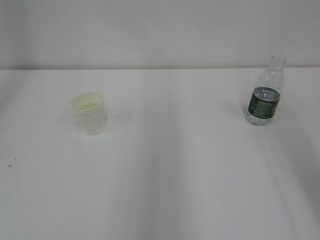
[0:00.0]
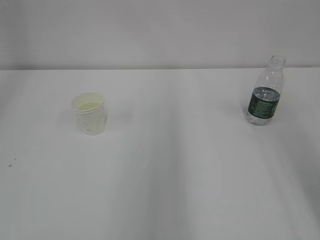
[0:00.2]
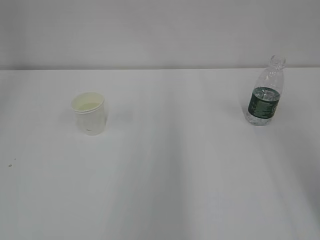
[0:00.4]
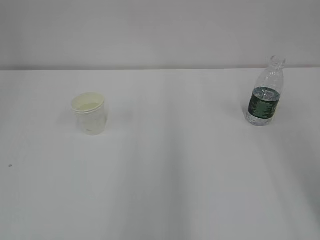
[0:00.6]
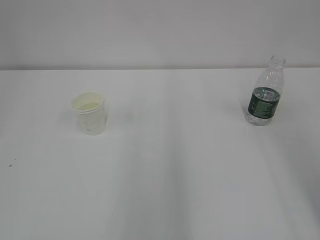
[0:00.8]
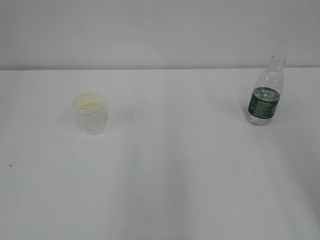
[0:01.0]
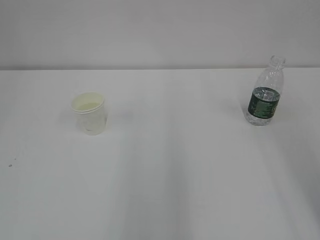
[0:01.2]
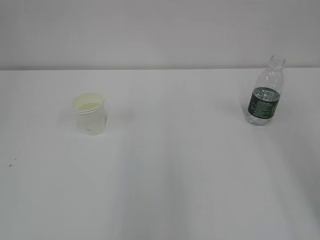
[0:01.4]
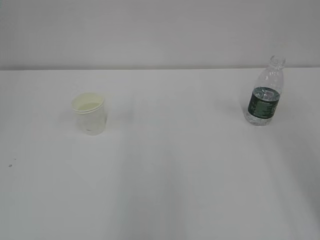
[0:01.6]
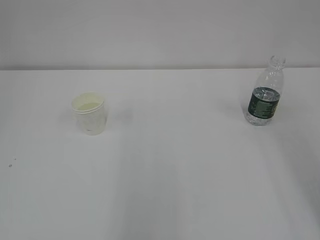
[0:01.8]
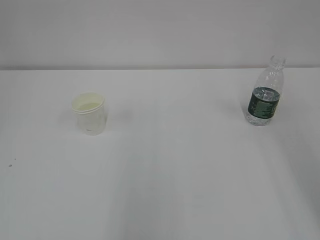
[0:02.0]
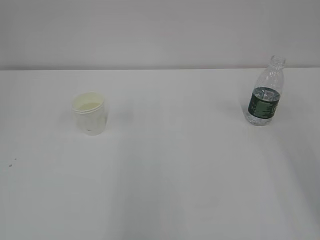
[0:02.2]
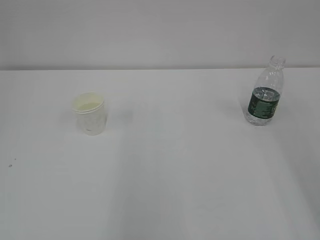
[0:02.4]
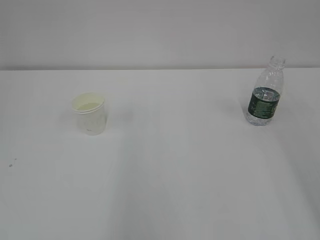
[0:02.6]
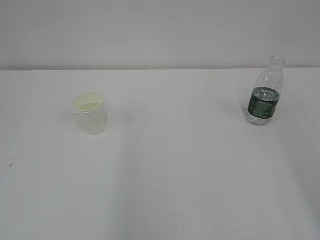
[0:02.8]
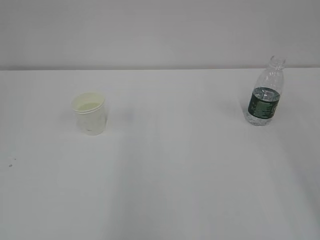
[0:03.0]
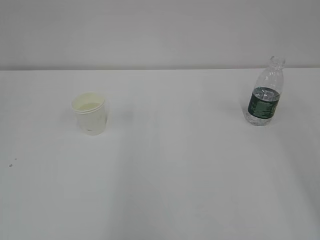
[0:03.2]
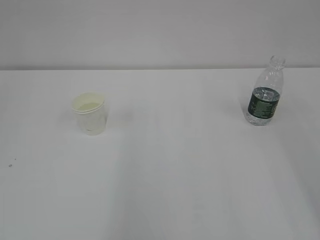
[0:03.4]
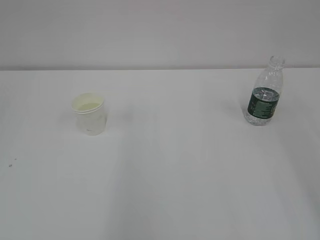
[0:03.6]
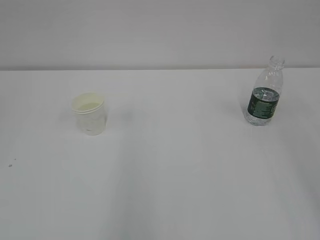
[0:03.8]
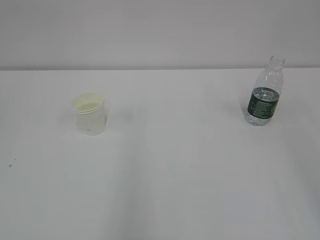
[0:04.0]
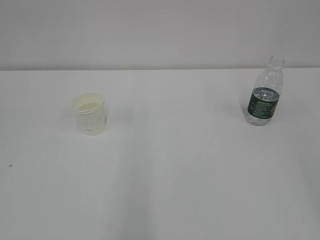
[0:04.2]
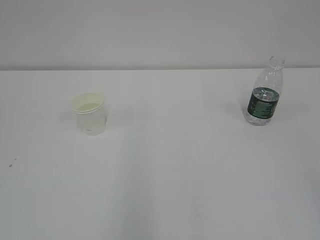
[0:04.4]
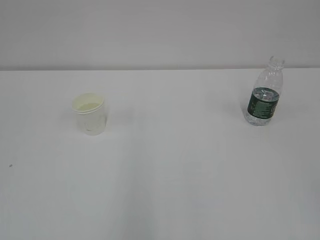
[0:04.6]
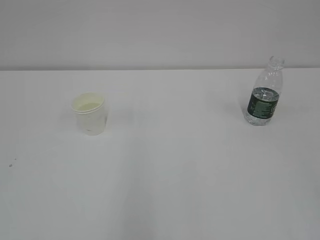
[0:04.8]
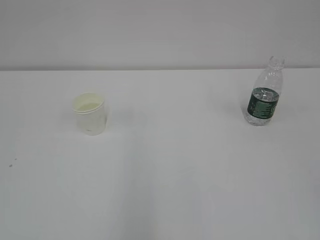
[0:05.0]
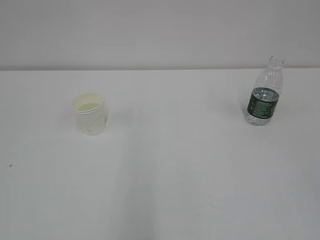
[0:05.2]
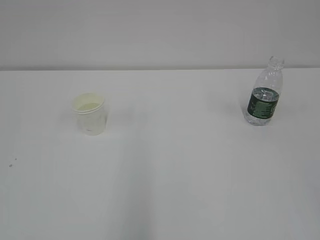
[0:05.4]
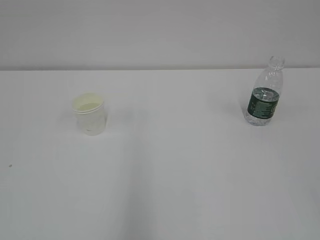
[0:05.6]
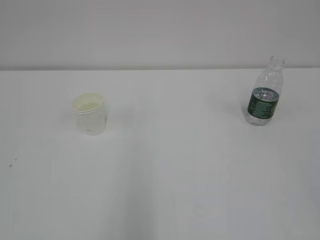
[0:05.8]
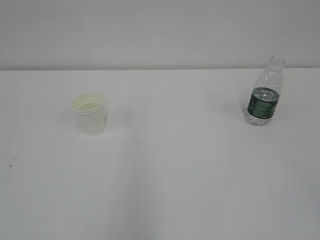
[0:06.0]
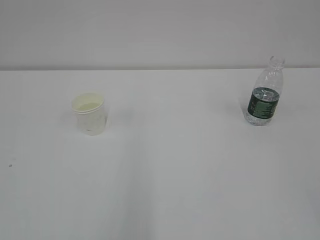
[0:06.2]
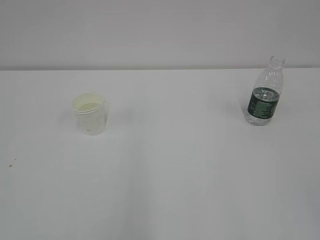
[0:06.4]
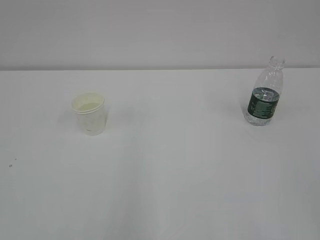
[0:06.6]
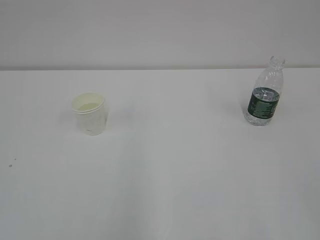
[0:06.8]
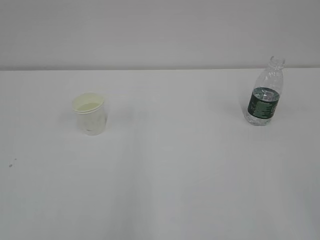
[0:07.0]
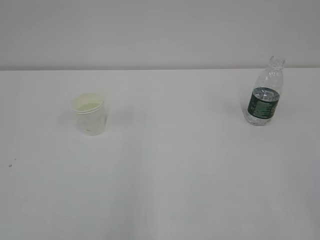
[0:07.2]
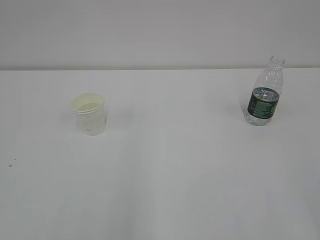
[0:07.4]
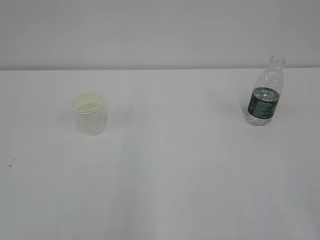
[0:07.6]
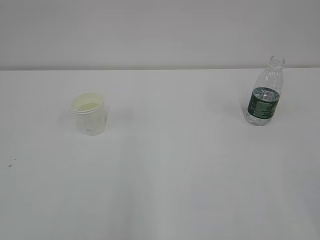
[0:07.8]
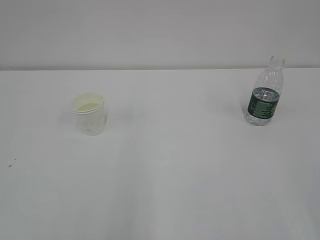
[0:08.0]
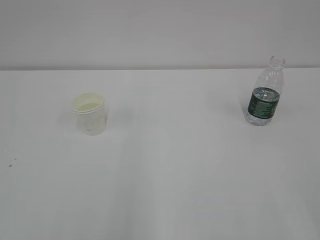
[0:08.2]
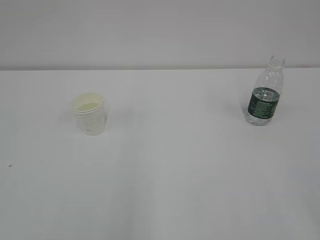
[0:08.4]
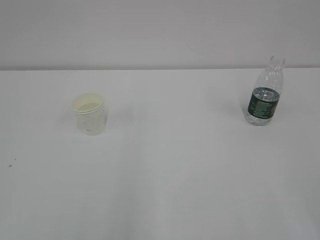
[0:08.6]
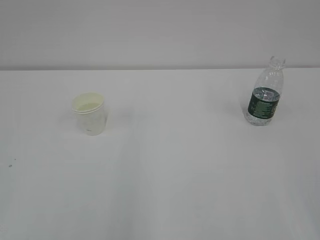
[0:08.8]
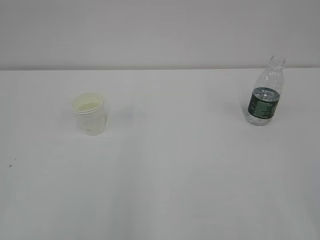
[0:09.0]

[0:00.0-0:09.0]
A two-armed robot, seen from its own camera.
0:07.6 to 0:09.0: Both grippers stay put.

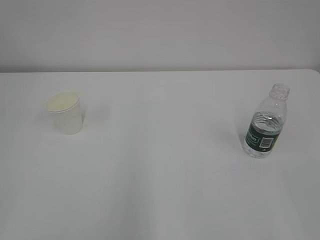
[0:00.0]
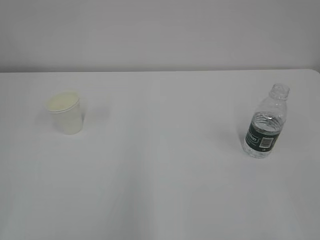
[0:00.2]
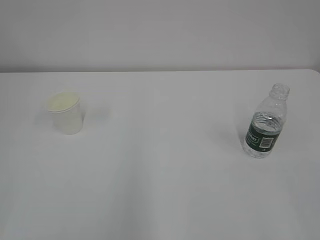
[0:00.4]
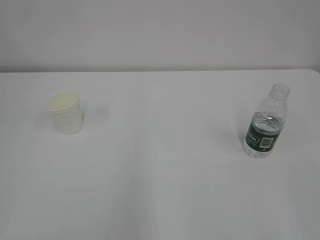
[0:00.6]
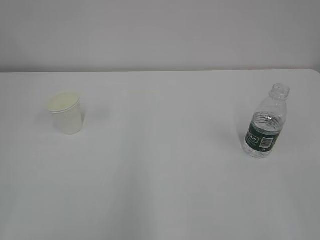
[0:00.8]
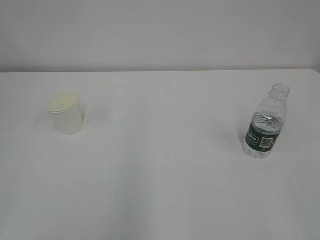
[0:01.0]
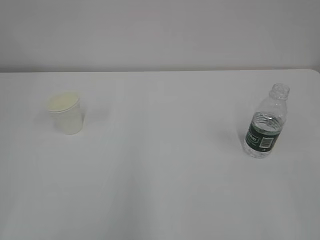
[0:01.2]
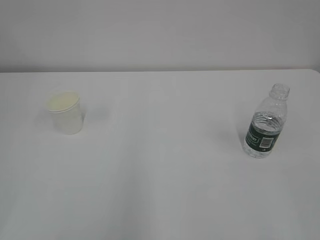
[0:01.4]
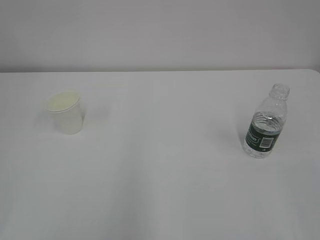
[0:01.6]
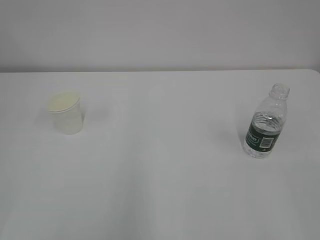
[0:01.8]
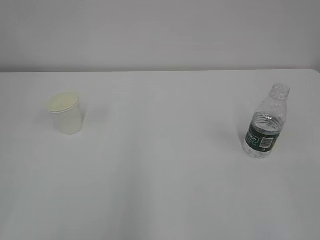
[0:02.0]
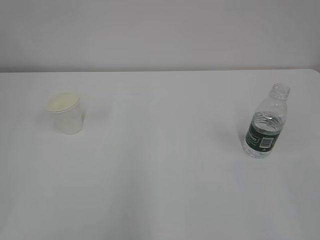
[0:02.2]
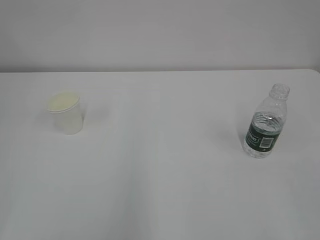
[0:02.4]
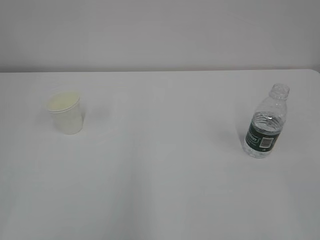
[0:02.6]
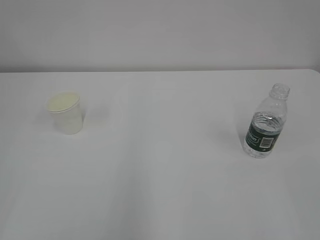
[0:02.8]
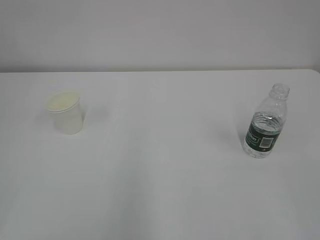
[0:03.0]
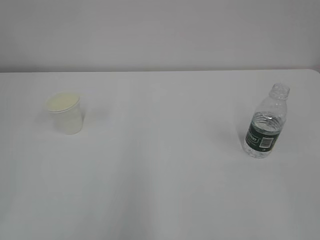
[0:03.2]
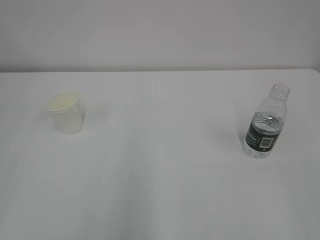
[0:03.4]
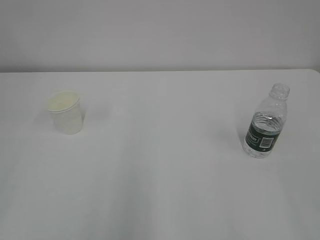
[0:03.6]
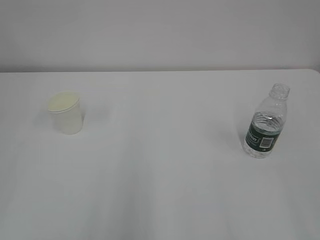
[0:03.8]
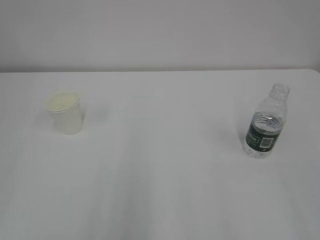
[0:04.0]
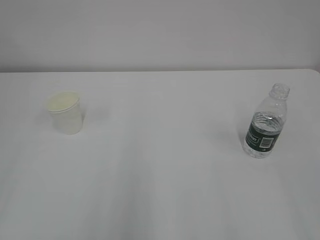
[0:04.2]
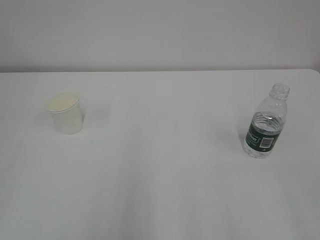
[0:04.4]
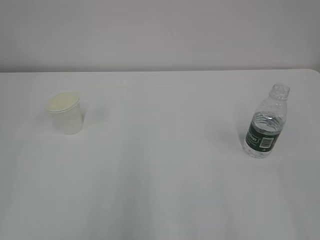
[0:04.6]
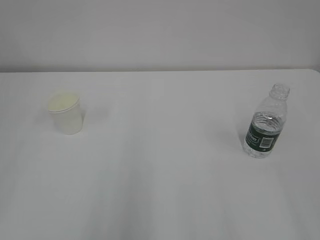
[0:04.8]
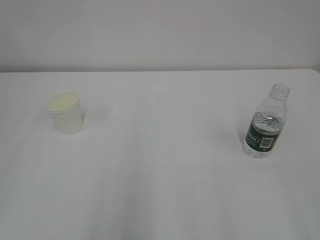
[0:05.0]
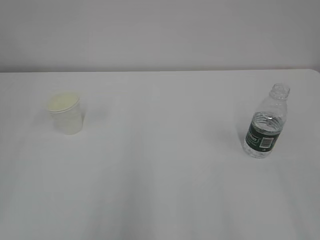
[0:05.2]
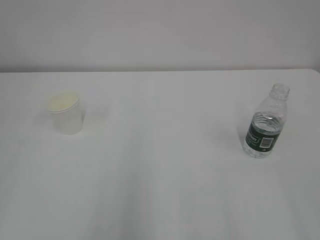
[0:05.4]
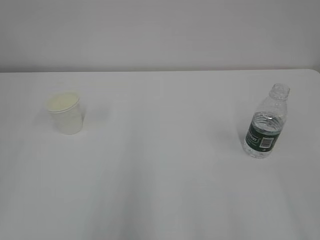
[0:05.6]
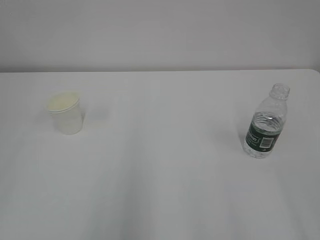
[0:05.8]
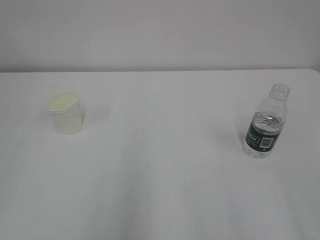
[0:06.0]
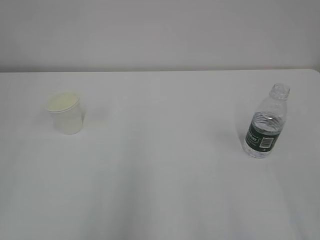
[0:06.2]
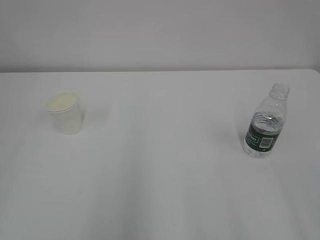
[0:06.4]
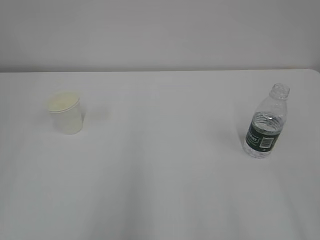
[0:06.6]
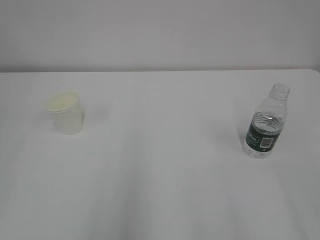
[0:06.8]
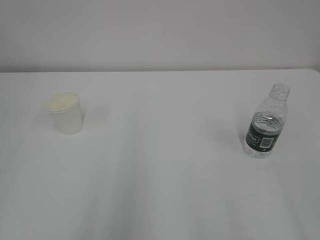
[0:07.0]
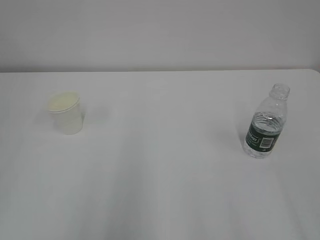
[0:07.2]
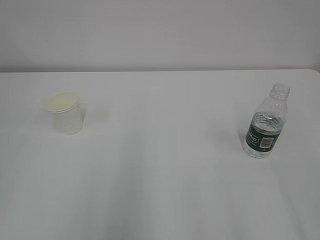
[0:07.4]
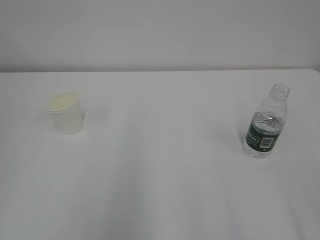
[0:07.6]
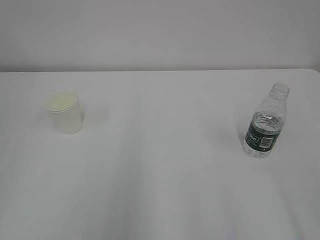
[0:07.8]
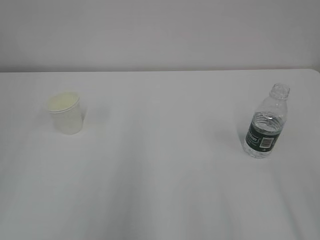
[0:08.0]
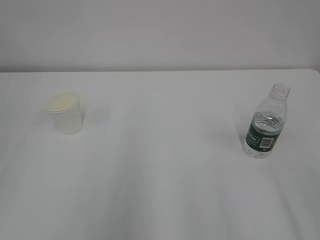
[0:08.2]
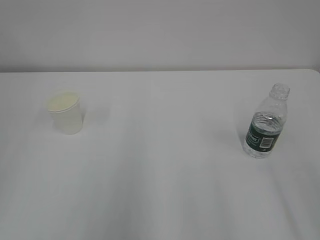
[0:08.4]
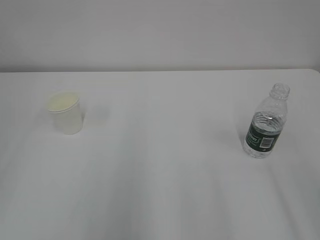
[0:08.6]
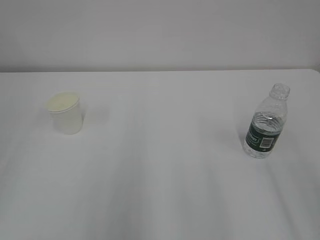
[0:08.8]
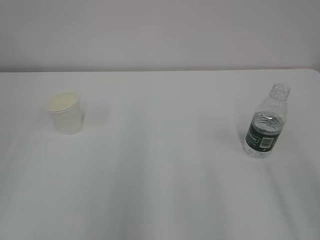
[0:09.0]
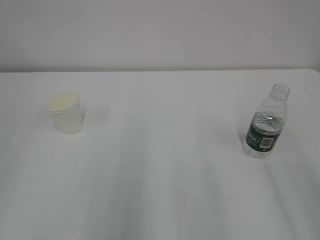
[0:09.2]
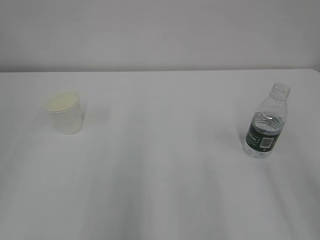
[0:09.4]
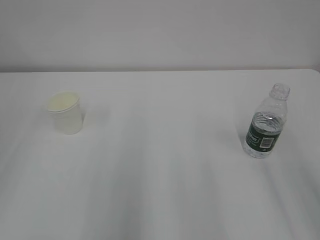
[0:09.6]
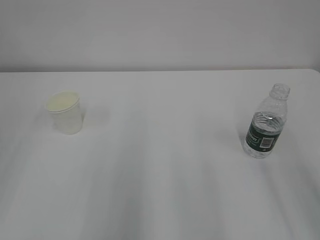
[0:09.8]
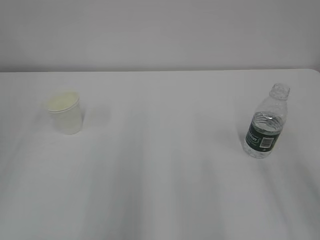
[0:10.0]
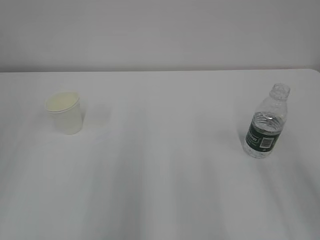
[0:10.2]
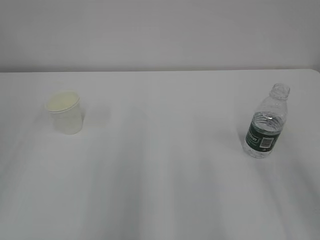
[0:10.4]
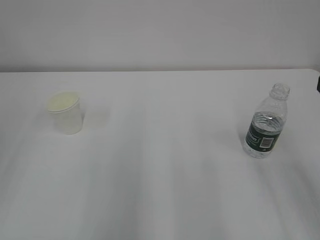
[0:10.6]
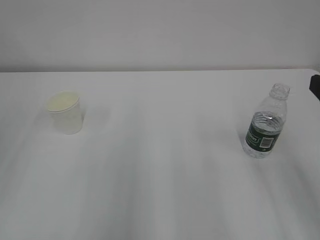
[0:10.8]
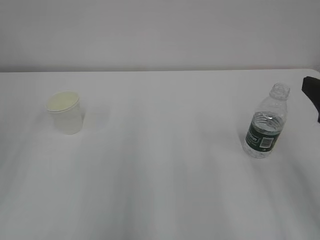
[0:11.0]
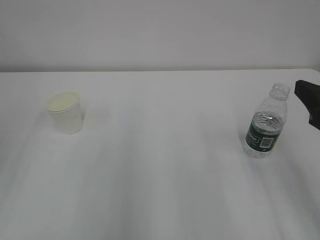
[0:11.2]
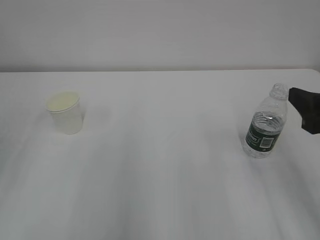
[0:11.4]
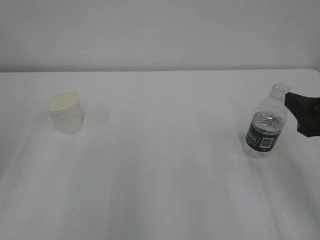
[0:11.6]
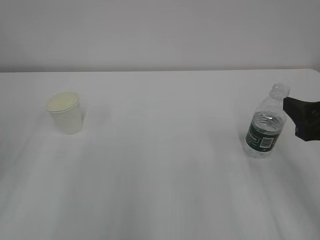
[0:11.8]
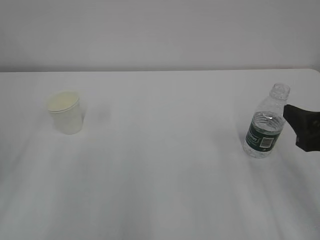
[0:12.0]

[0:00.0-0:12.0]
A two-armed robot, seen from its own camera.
0:01.6 to 0:03.0: Both grippers stay put.
0:10.4 to 0:12.0: The right gripper is displaced downward by approximately 5 cm.

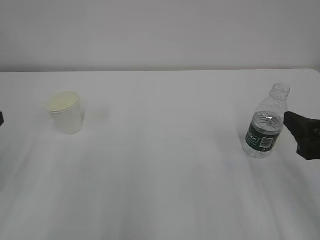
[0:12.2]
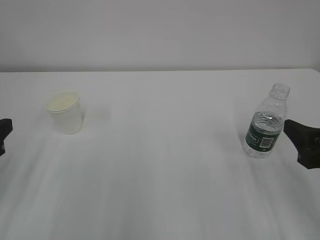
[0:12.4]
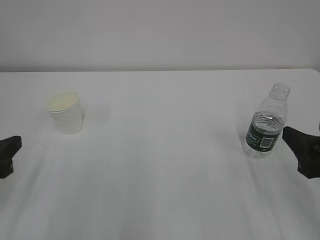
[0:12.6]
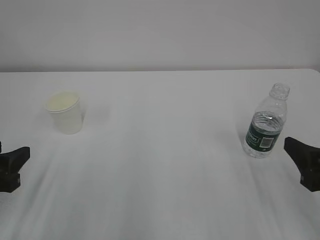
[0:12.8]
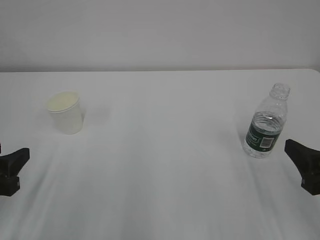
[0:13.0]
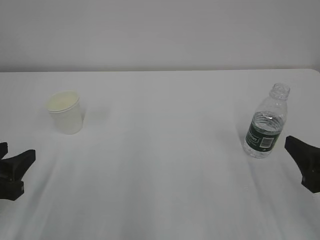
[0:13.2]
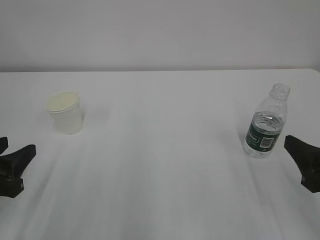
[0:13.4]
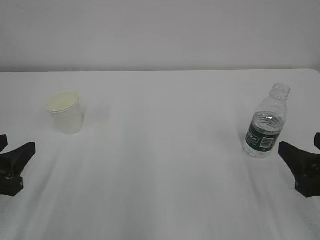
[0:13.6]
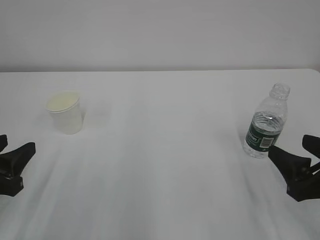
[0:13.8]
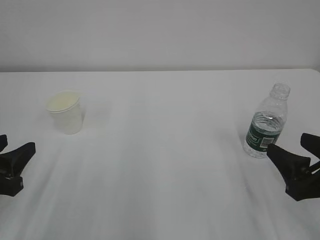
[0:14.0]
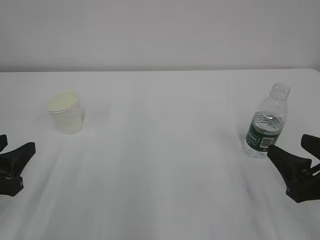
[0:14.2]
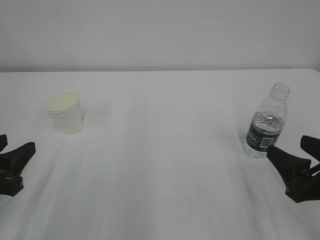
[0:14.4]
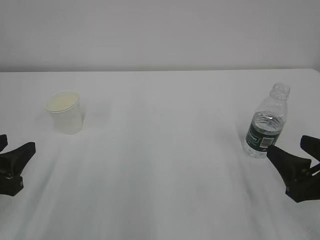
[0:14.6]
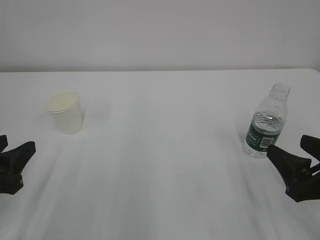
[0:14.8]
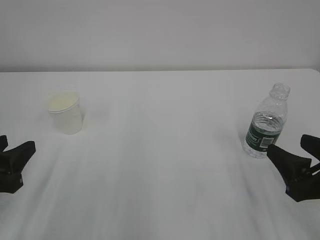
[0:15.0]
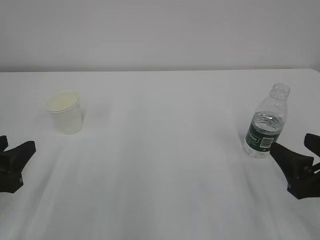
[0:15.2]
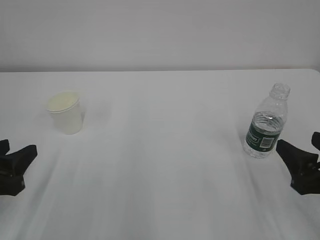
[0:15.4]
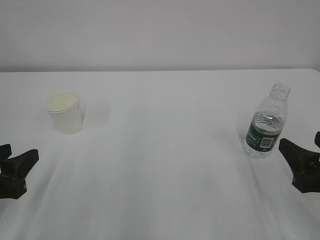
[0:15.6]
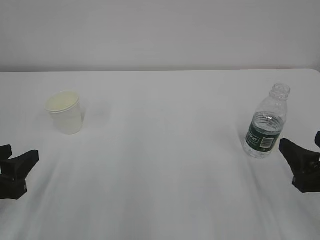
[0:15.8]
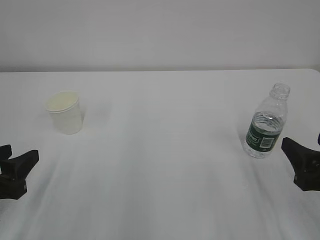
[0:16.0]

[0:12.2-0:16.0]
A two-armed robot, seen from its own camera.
0:12.2 to 0:13.4: The left gripper moves downward, roughly 5 cm.
0:13.4 to 0:16.0: The grippers make only small movements.
